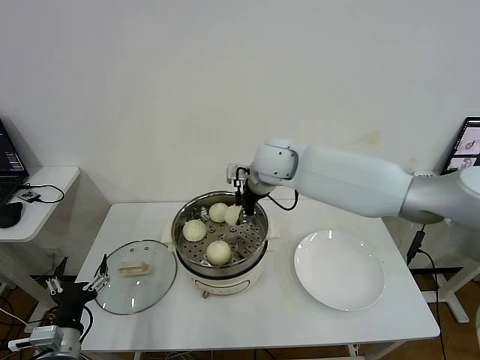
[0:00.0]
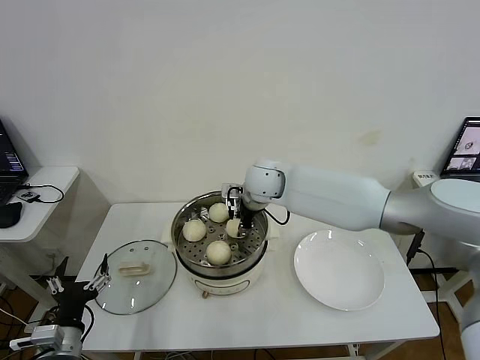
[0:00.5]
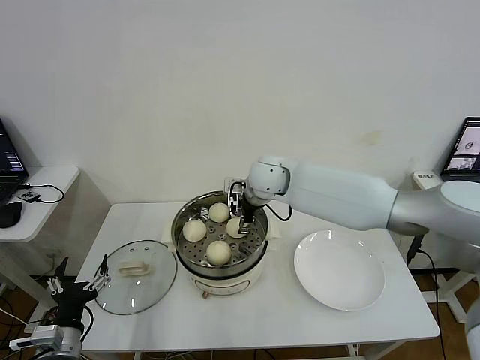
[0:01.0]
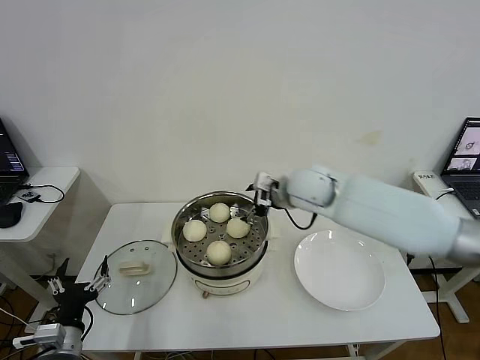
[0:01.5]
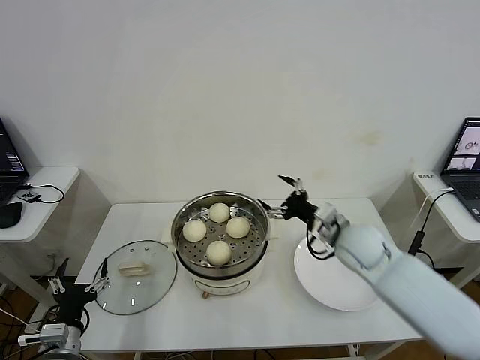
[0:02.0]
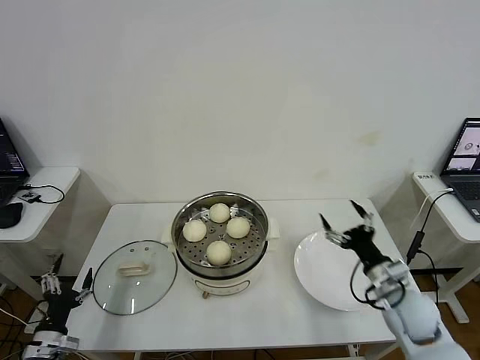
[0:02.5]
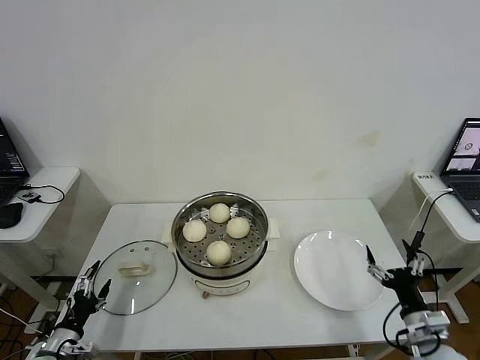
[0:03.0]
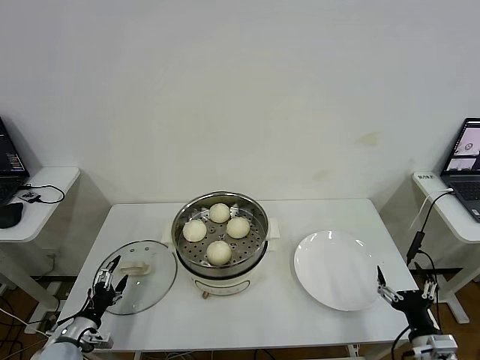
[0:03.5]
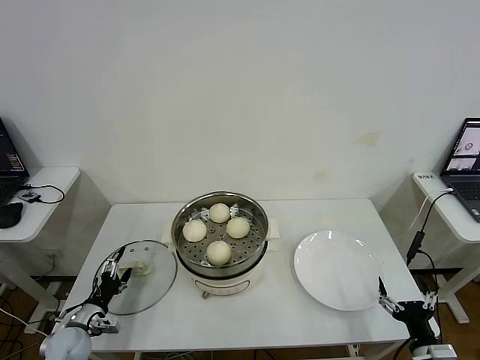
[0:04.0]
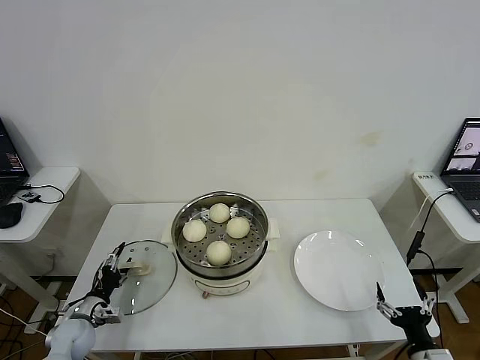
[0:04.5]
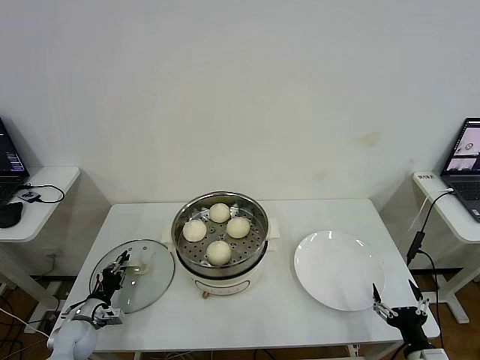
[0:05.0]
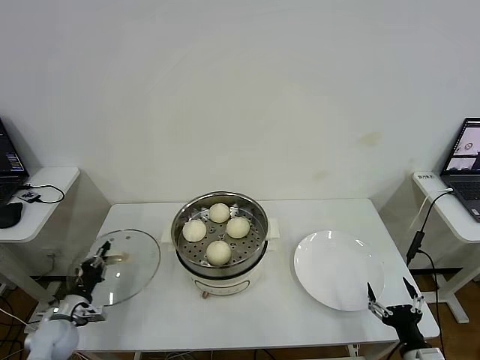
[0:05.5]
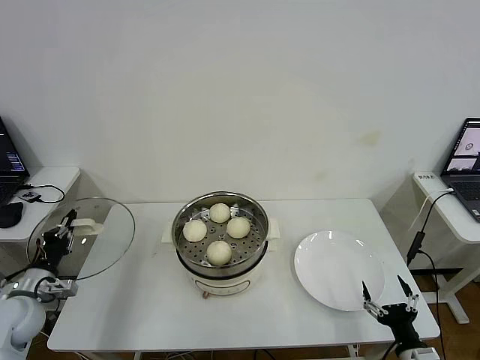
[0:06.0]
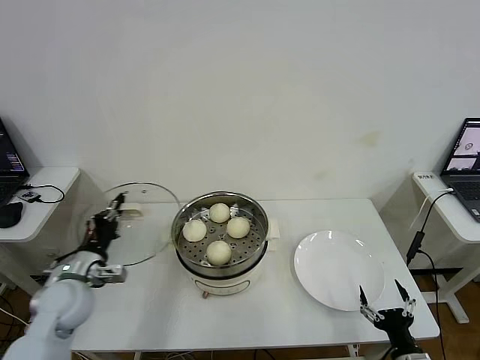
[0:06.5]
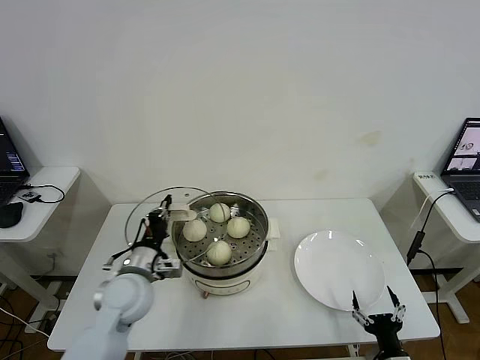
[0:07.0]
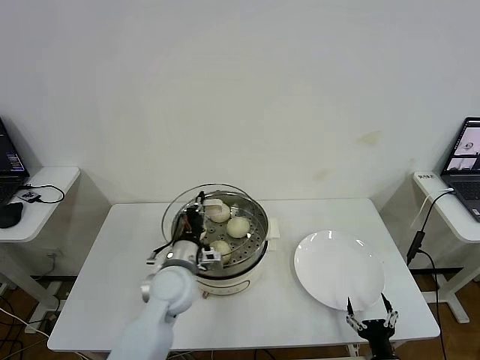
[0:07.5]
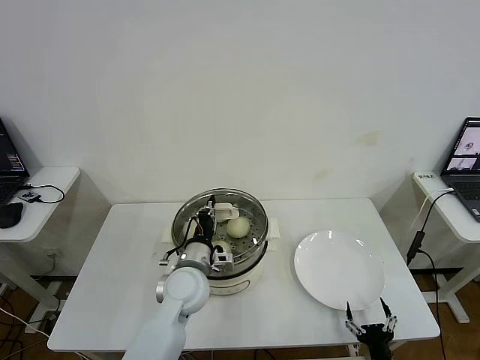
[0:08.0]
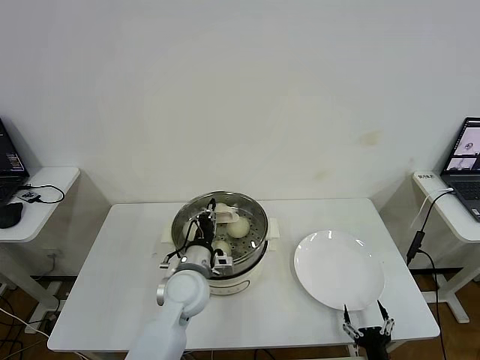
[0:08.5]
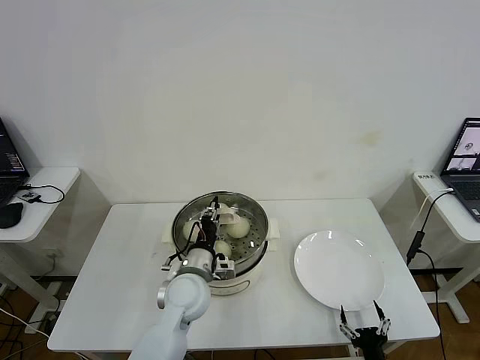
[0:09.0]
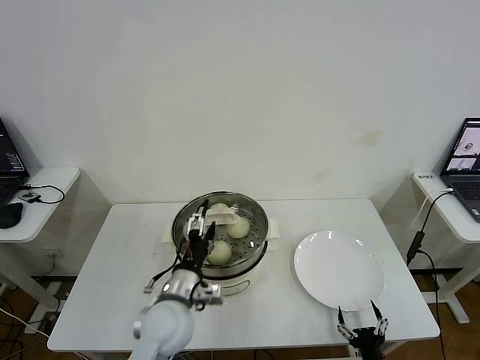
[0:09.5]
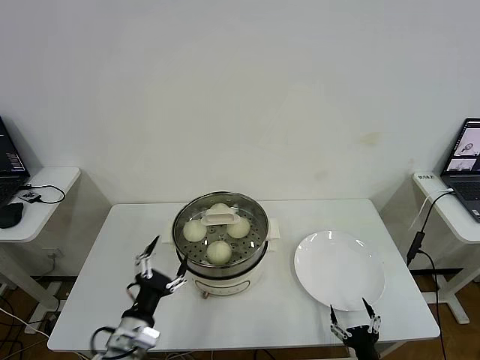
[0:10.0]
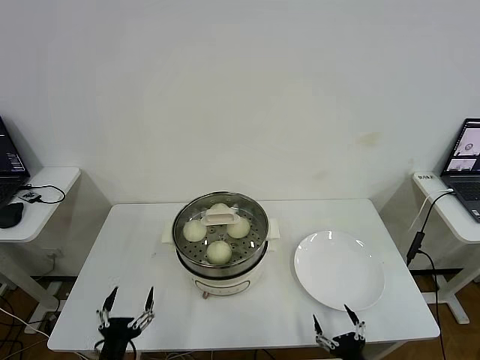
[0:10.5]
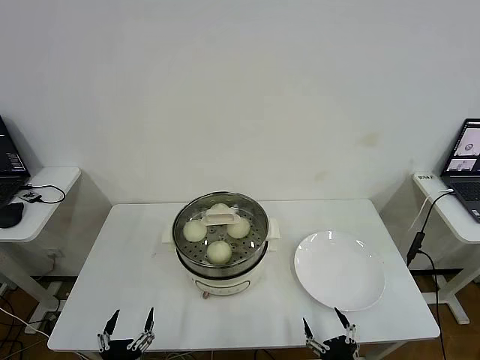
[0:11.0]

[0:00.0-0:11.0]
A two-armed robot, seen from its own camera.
Step, 0:01.5 to 0:05.0: Grasp the pot lid with left gripper.
Step, 0:05.5 to 0:09.0: Place the pot lid on the steamer with left gripper.
0:00.0 to 0:02.0: The right gripper shifts about 25 cm to the right, downward and backward, and opens up.
0:02.0 to 0:03.5: The right gripper goes about 30 cm backward, to the right and downward, while the left gripper shifts approximately 10 cm downward and to the left.
0:03.5 to 0:05.5: The left gripper goes about 5 cm forward, and closes.
0:05.5 to 0:07.5: The right gripper shifts about 5 cm downward. Meanwhile the left gripper is displaced to the right and upward by approximately 35 cm.
0:07.5 to 0:09.0: The grippers stay close to where they were, moving slightly.
0:09.0 to 0:11.0: The left gripper moves backward and to the left, some 30 cm, and opens its fingers; the right gripper goes some 10 cm upward and to the left.

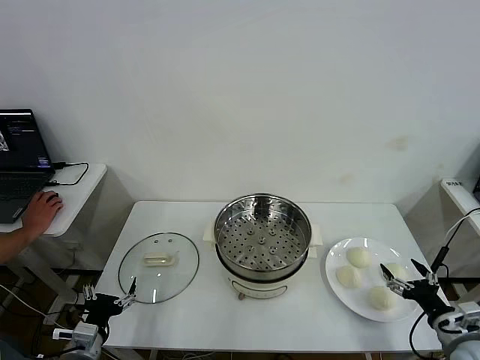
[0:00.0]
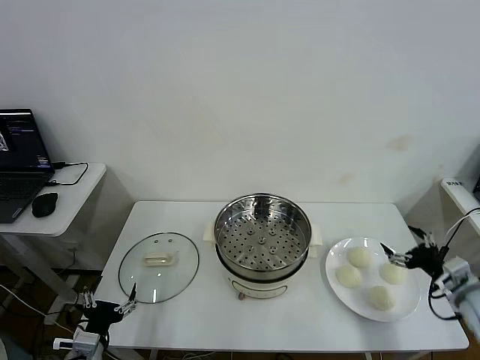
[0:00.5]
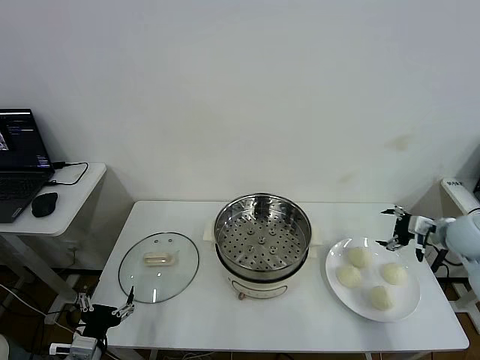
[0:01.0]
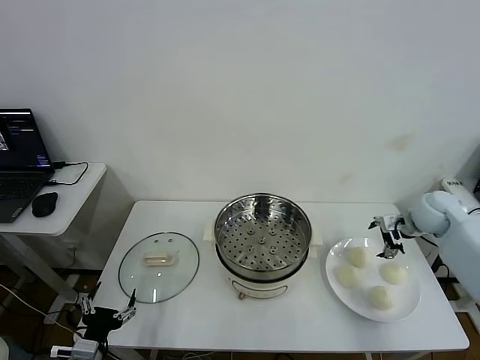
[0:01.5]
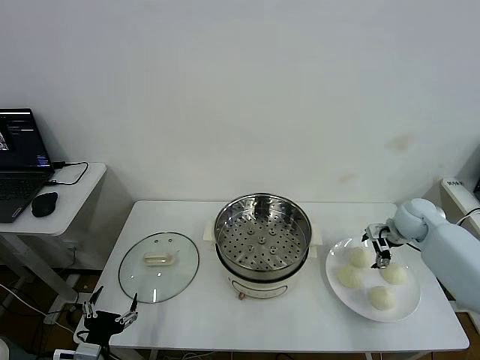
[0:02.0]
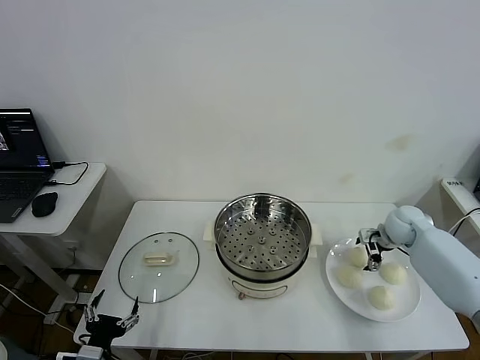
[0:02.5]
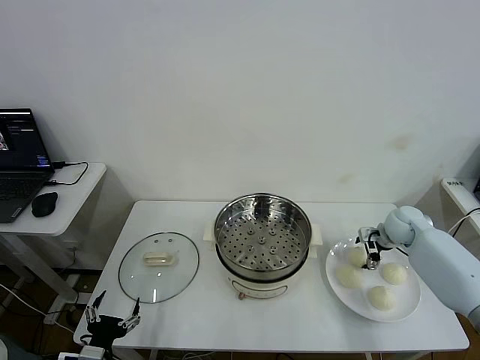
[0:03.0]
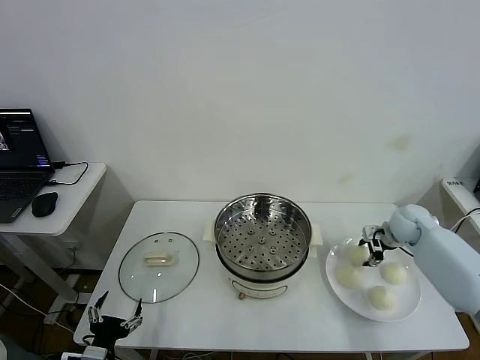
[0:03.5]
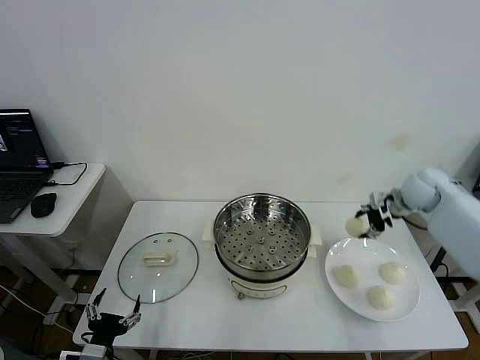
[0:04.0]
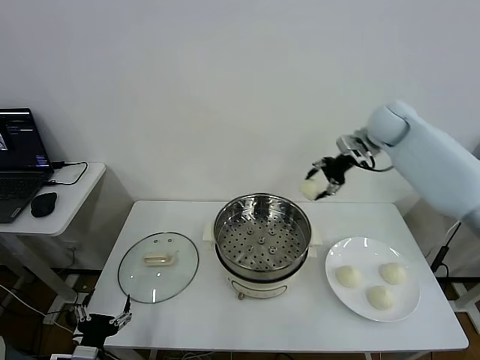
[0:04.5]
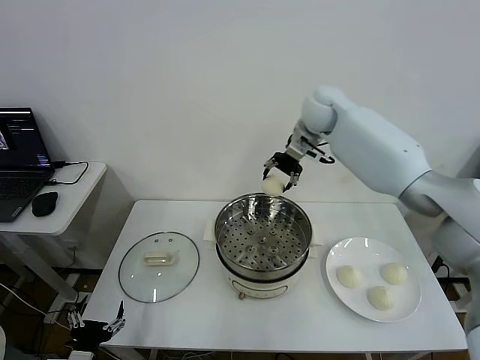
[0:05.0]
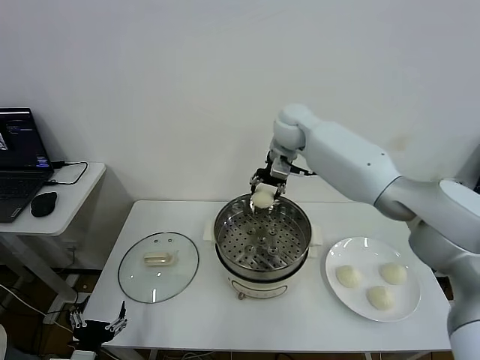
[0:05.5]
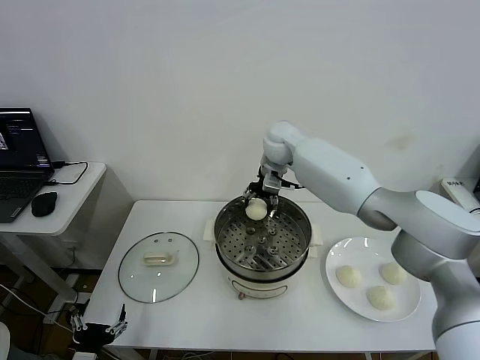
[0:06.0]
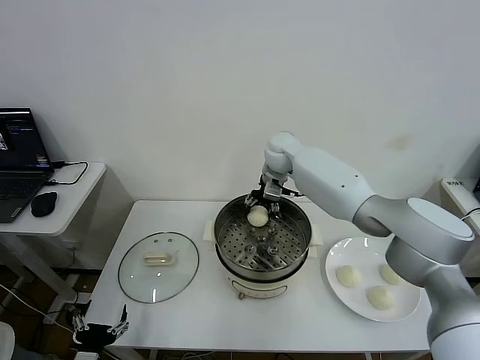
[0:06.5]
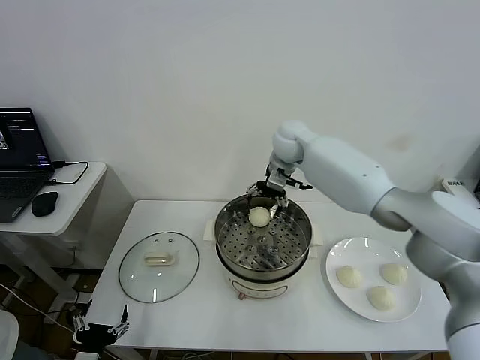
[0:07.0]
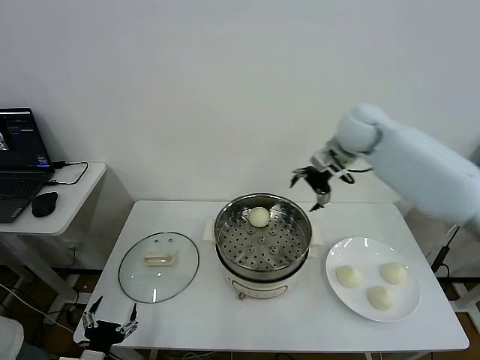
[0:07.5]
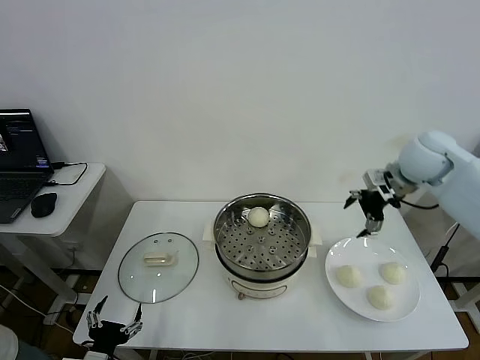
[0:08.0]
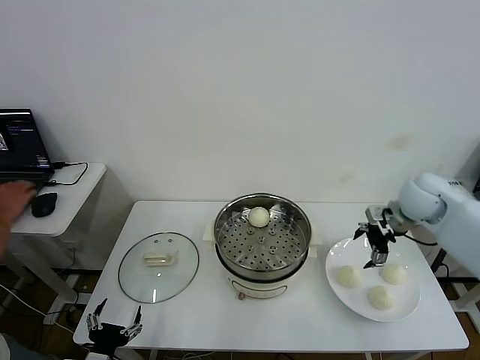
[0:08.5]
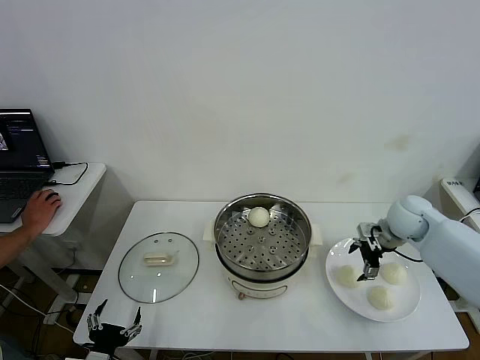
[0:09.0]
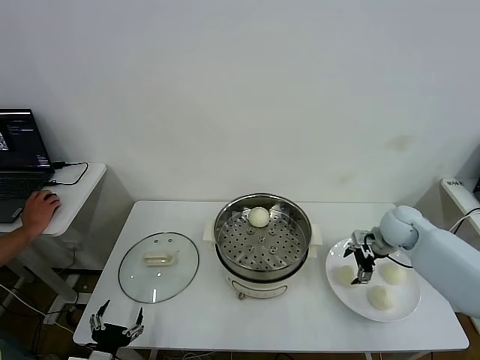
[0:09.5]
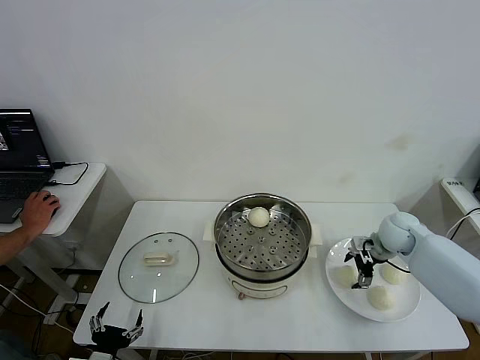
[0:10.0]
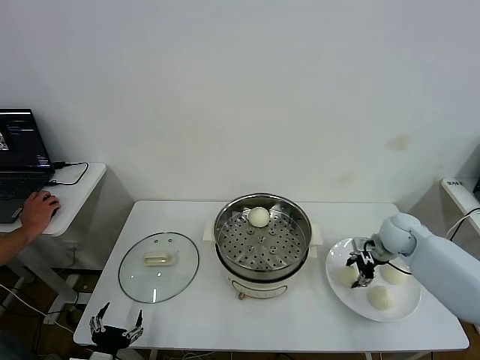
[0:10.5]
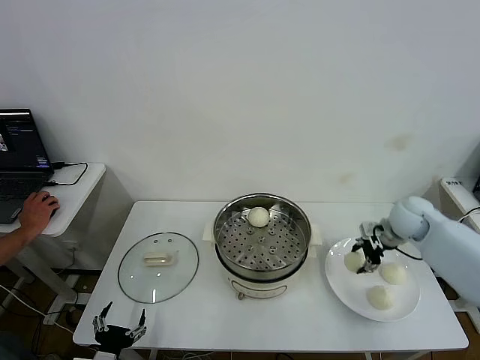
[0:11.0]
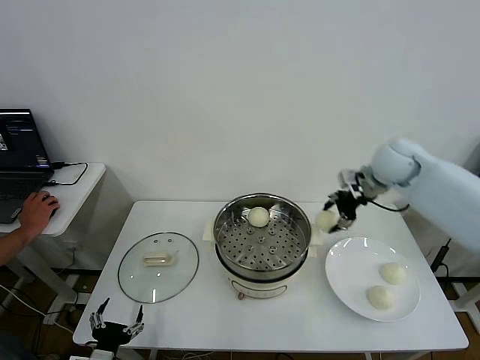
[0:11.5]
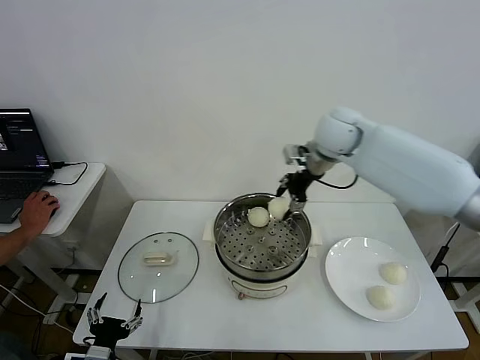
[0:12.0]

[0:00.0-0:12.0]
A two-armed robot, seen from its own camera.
Step, 0:00.0 to 0:03.0: Grasp the baozi in the plate with right gripper.
Step, 0:03.5 to 0:06.5: Place the baozi on the steamer with right gripper.
Step, 0:07.0 to 0:10.0: Grasp the baozi in the plate with right gripper.
0:02.0 to 0:04.0: The right gripper moves upward, roughly 15 cm, and closes its fingers.
0:04.0 to 0:06.0: The right gripper goes about 30 cm to the left.
0:06.0 to 0:08.0: The right gripper is displaced to the right and backward by roughly 30 cm, and opens.
0:08.0 to 0:10.0: The right gripper goes some 20 cm downward.
0:10.0 to 0:12.0: The right gripper travels upward and to the left by some 30 cm, and closes its fingers.

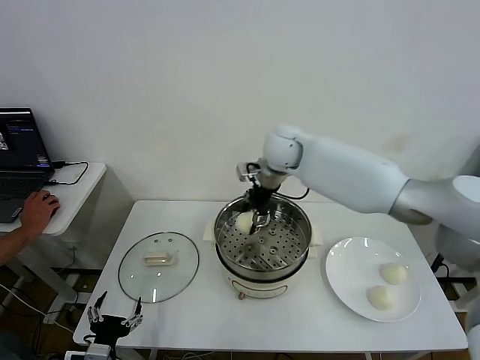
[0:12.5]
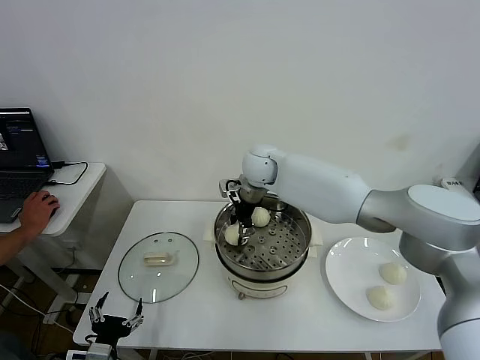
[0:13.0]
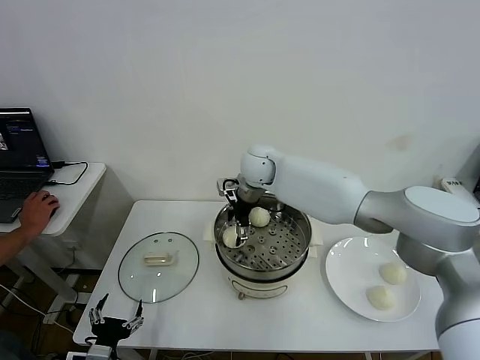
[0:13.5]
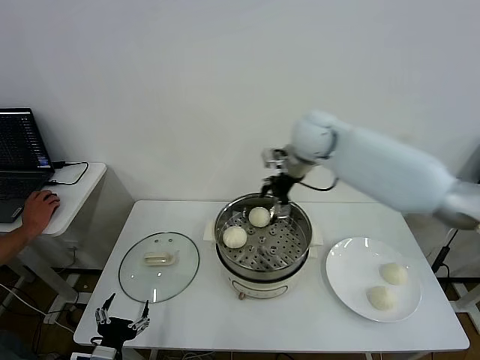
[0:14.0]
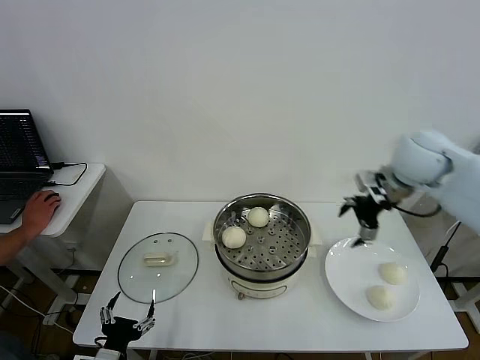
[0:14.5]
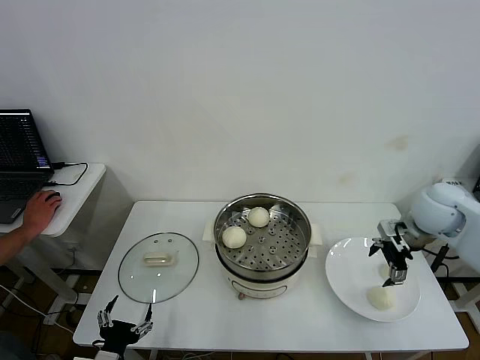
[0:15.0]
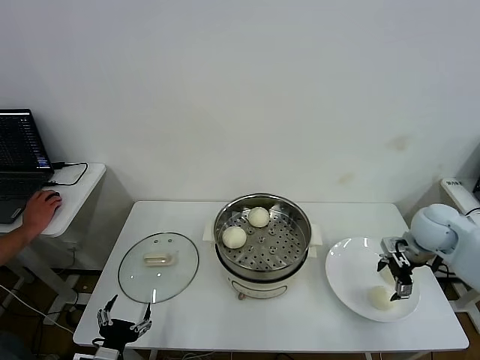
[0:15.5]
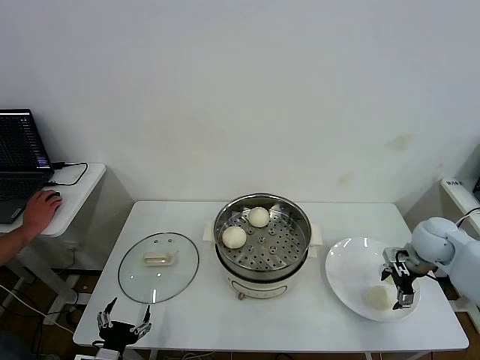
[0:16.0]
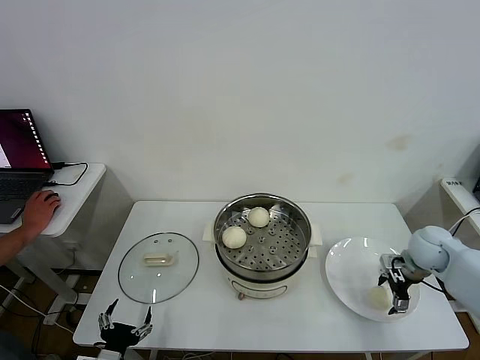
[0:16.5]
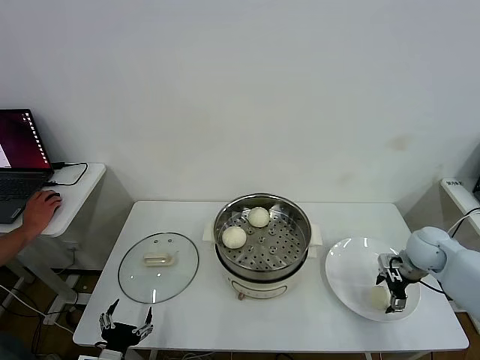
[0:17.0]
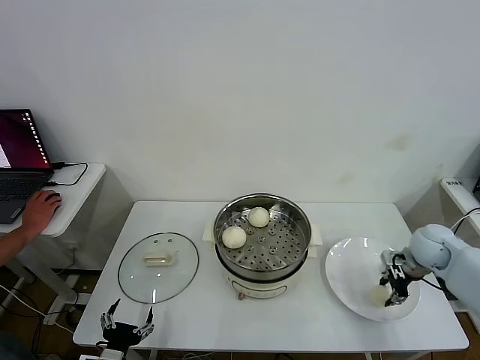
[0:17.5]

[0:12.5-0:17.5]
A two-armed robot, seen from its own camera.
Step, 0:14.0 to 0:17.0: Grasp the baozi in the plate with right gripper.
0:12.5 to 0:15.0: The right gripper moves to the right and backward, about 35 cm, and opens its fingers.
0:15.0 to 0:17.5: The right gripper shifts some 10 cm downward, and closes up.
